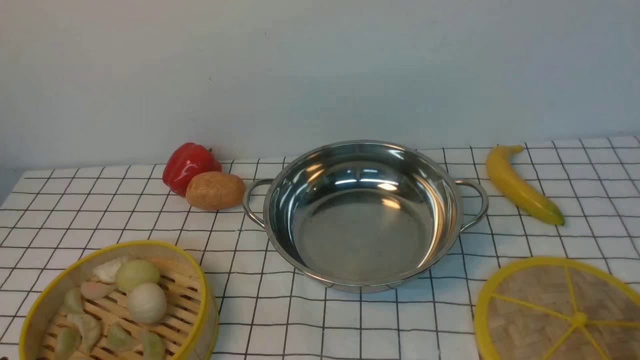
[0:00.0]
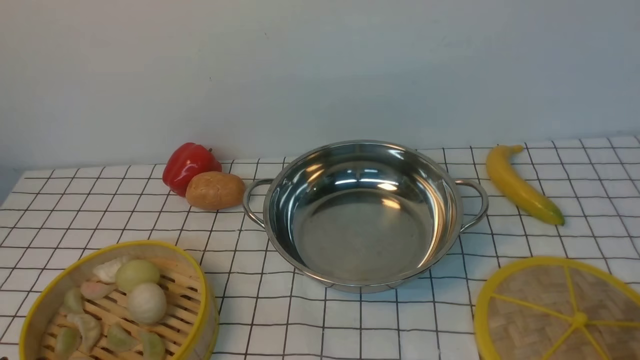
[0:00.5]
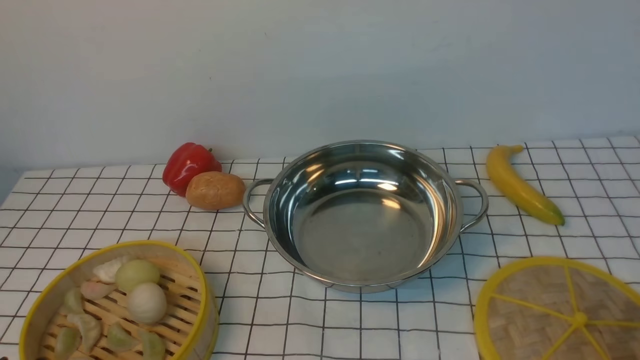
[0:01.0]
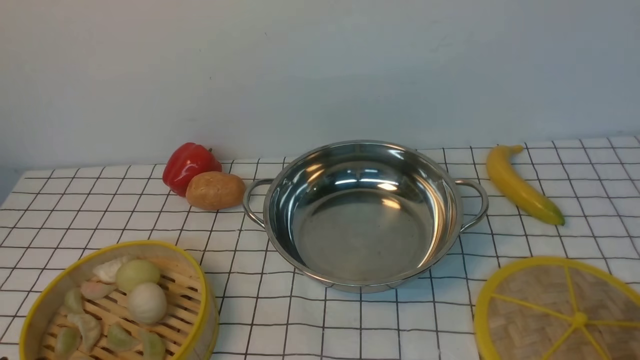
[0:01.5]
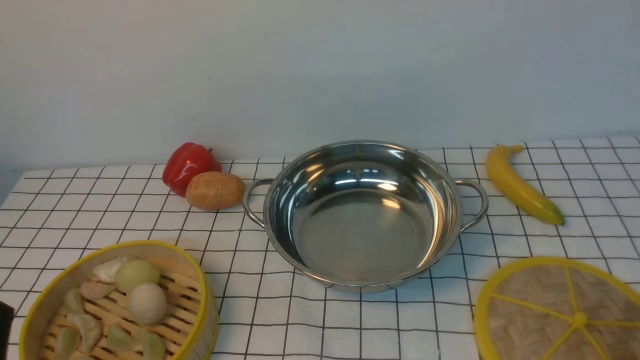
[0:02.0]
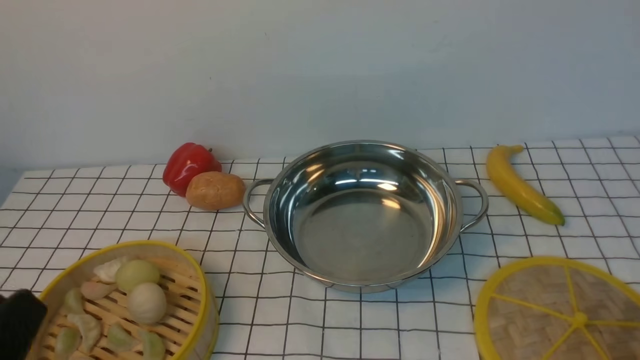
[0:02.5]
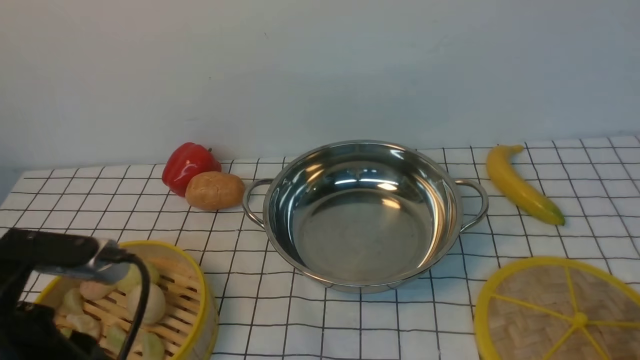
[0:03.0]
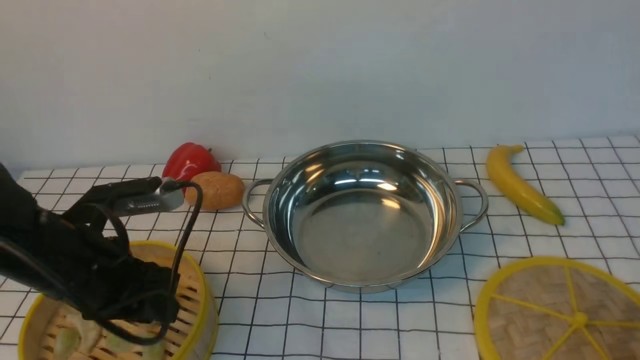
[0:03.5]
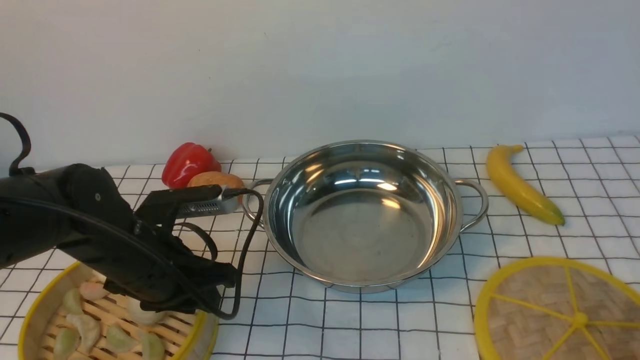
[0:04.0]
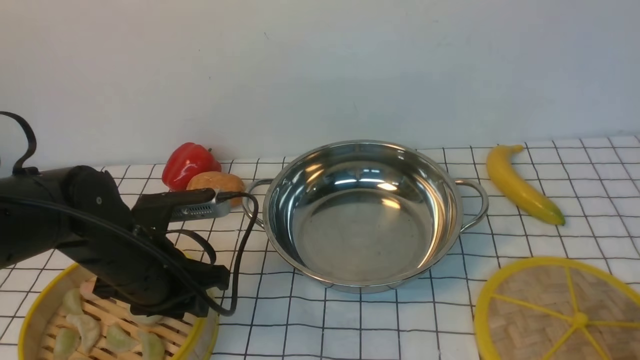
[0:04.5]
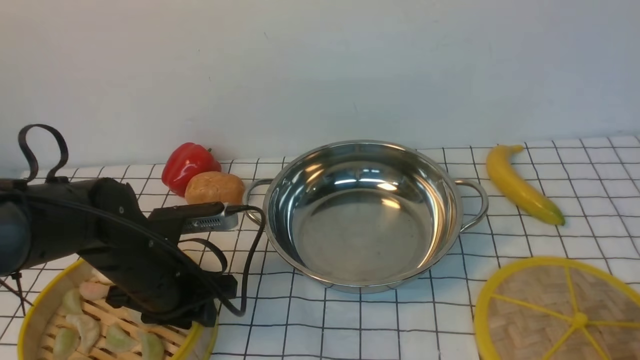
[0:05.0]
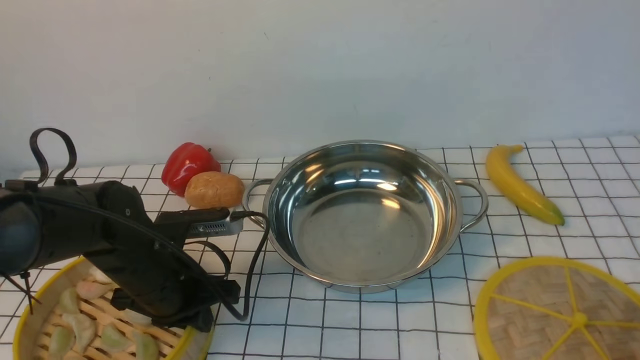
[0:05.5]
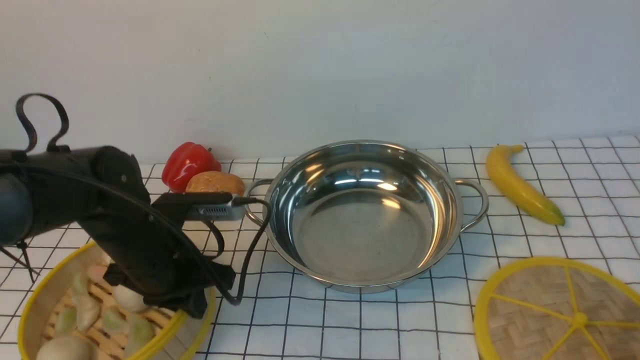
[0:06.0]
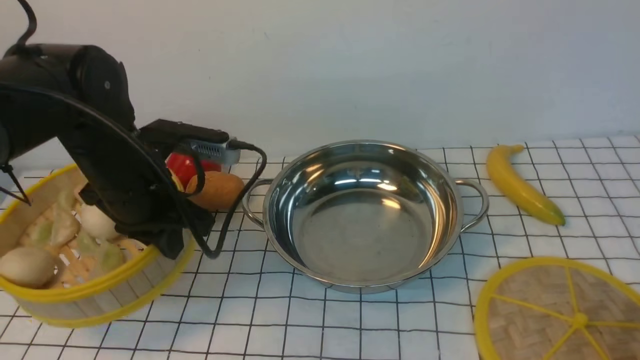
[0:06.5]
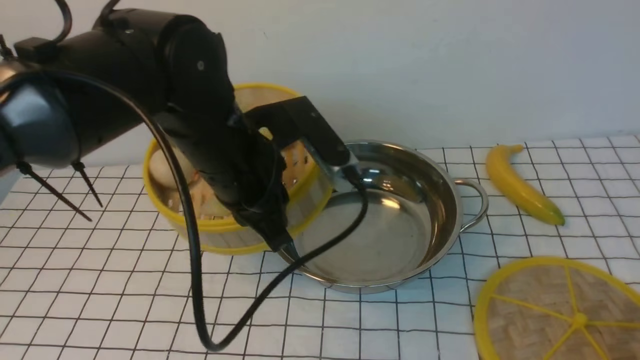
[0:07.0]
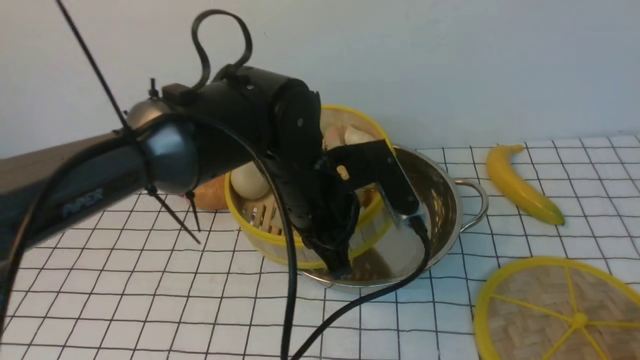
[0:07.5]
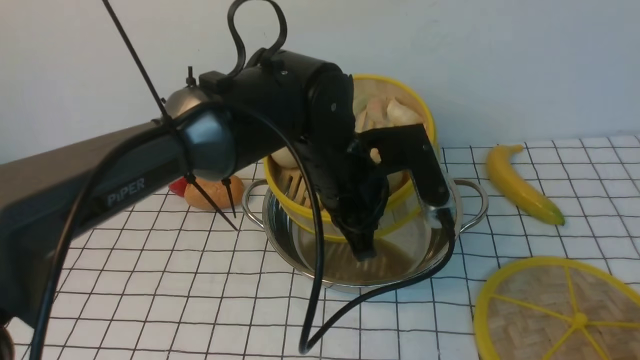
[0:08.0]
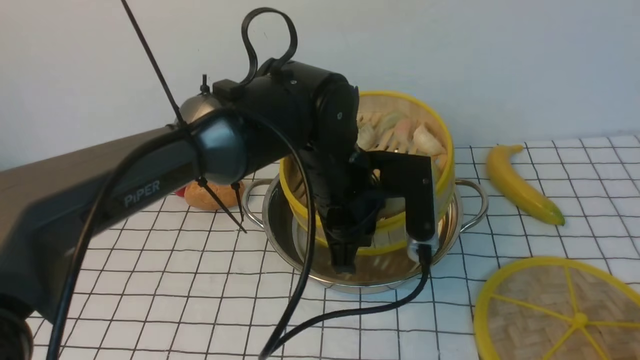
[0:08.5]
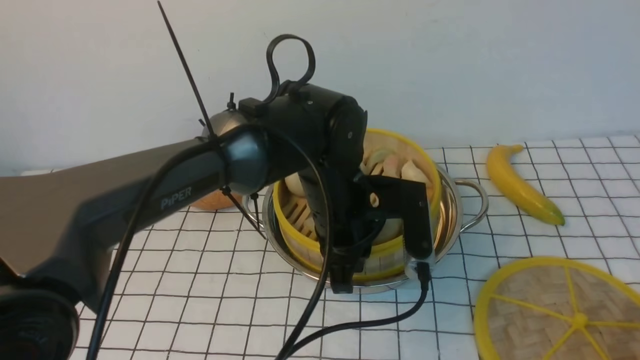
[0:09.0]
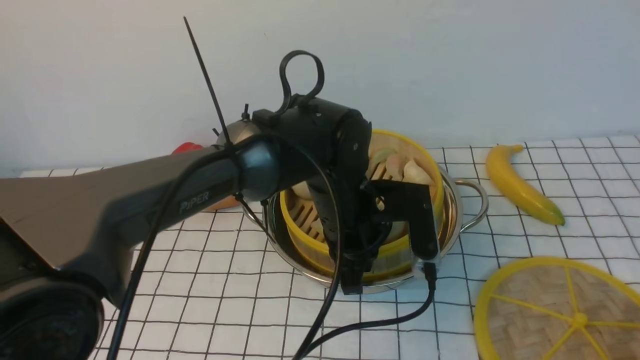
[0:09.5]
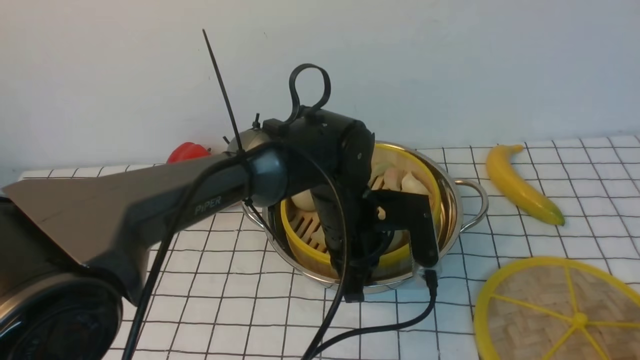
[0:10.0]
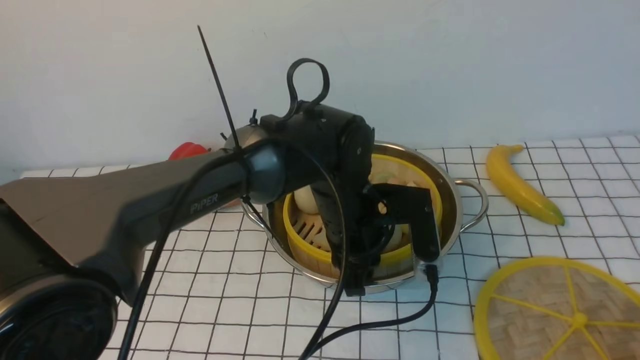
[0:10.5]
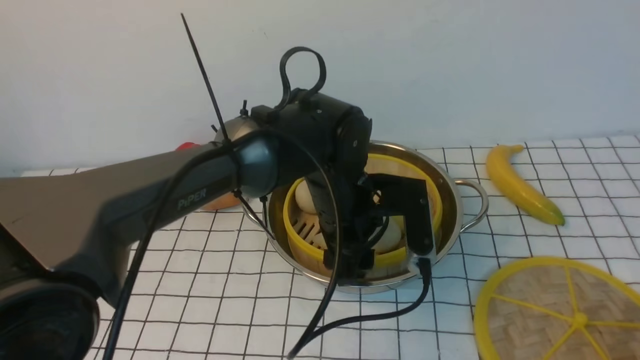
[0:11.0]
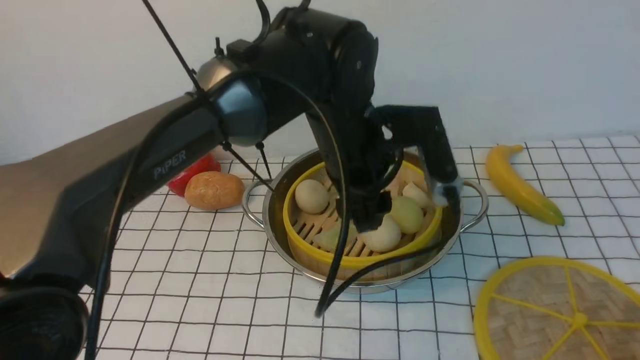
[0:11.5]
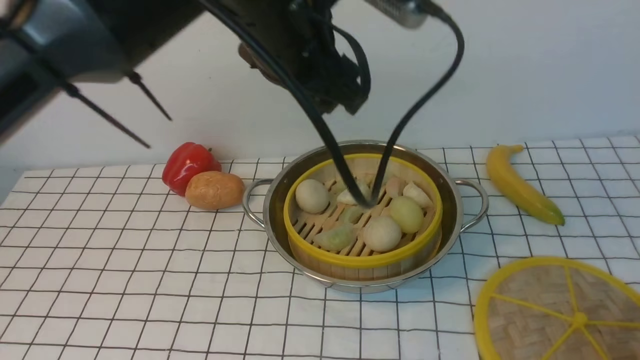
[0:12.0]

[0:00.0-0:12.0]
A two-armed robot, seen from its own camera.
Task of the whole recording: place the steamer in the pot on the white tablecloth, and put the lid on the steamer.
Step, 0:00.0 to 0:06.0: use the left arm to lift the steamer closest to it.
Step, 0:06.5 to 0:11.0: use the left arm to put the steamer into the iron steamer pot in the middle.
0:02.0 to 0:04.0: The left gripper is displaced forward by roughly 20 cm.
0:04.0 to 0:06.0: The left gripper closes.
0:06.0 to 0:08.0: The left gripper is displaced to the right by approximately 20 cm.
0:08.0 to 0:10.0: The left gripper shifts some 5 cm downward.
0:10.0 to 0:12.0: The left gripper goes some 20 cm upward, and opens its fingers.

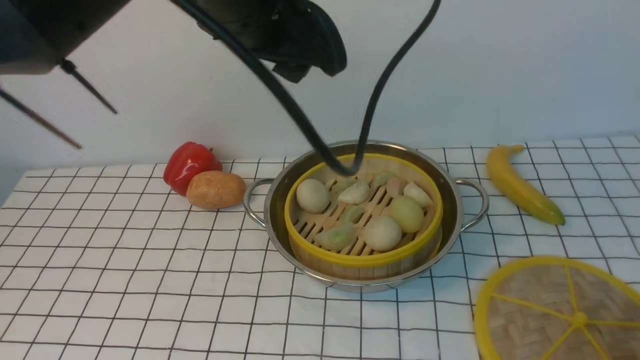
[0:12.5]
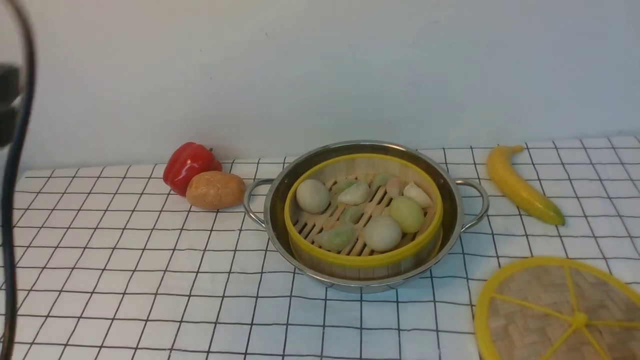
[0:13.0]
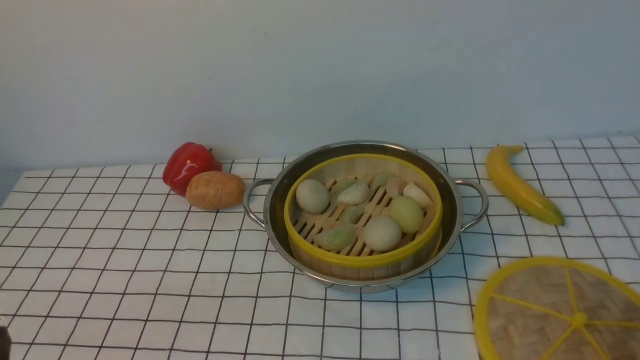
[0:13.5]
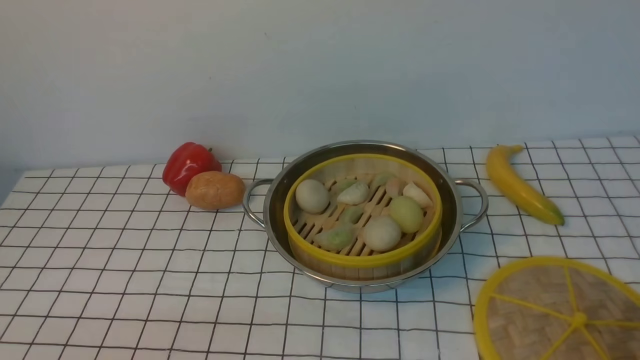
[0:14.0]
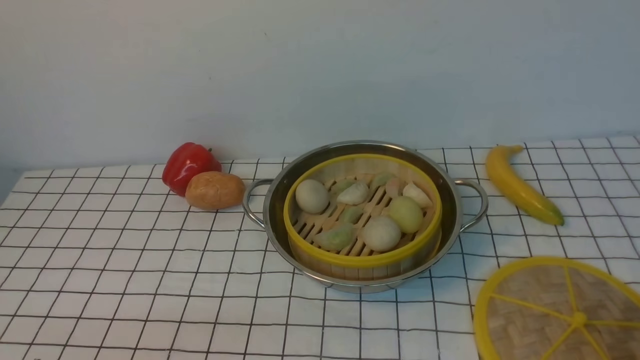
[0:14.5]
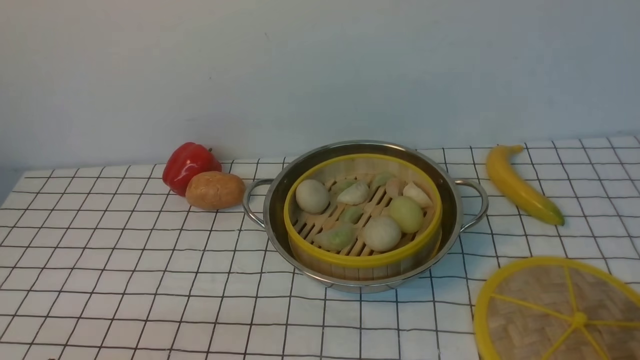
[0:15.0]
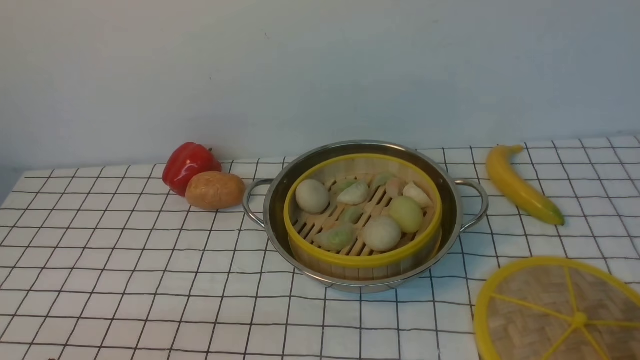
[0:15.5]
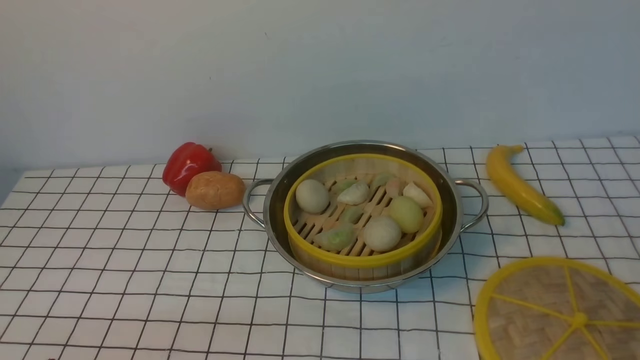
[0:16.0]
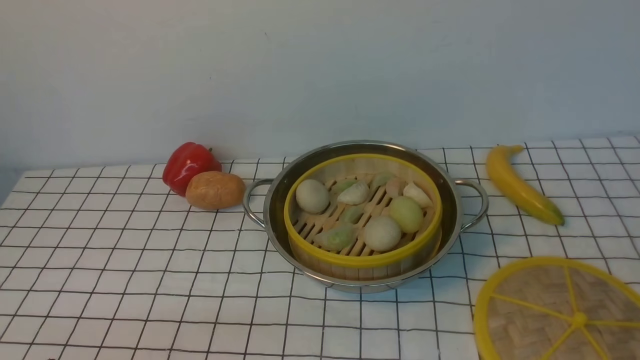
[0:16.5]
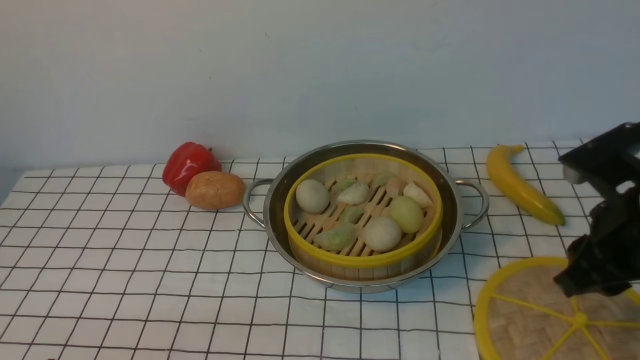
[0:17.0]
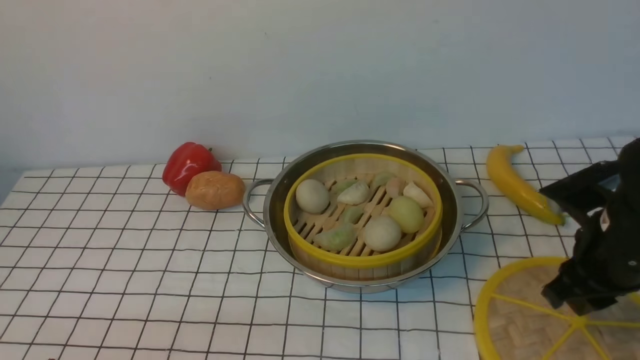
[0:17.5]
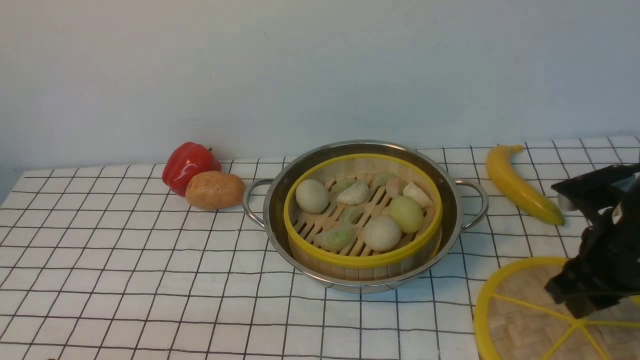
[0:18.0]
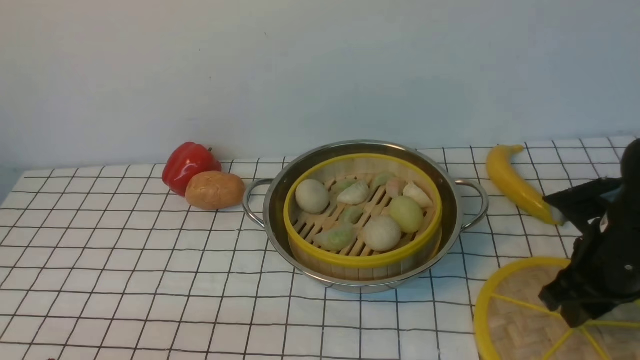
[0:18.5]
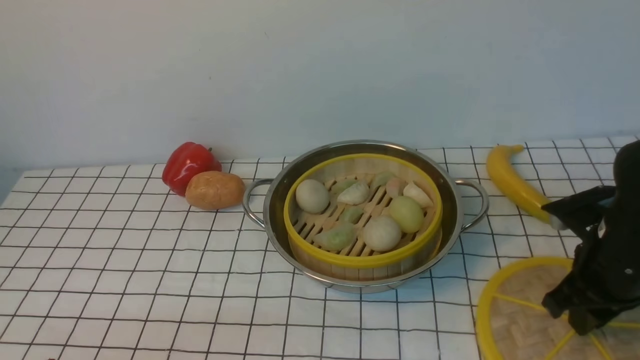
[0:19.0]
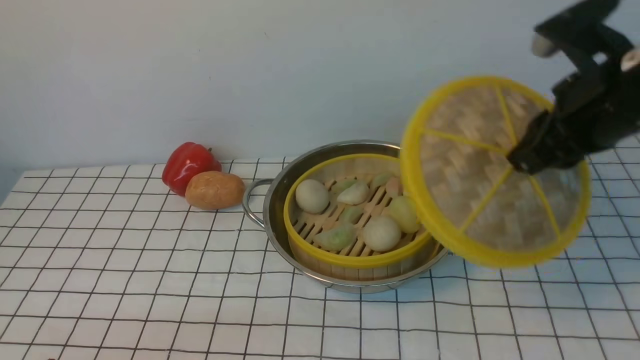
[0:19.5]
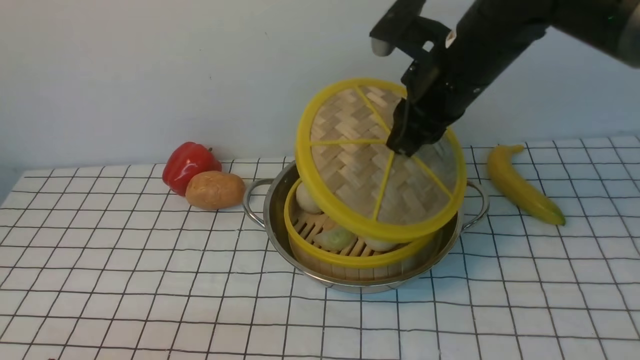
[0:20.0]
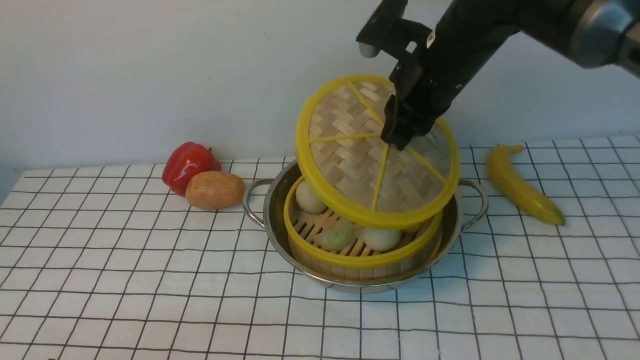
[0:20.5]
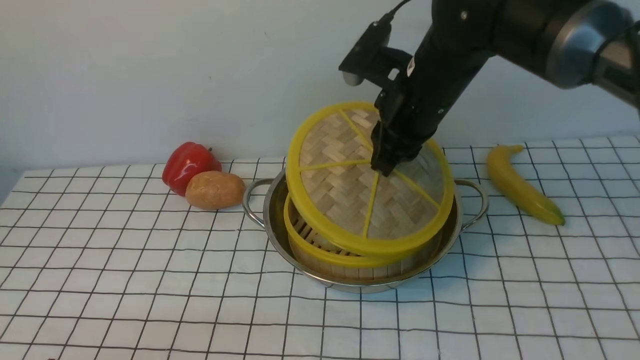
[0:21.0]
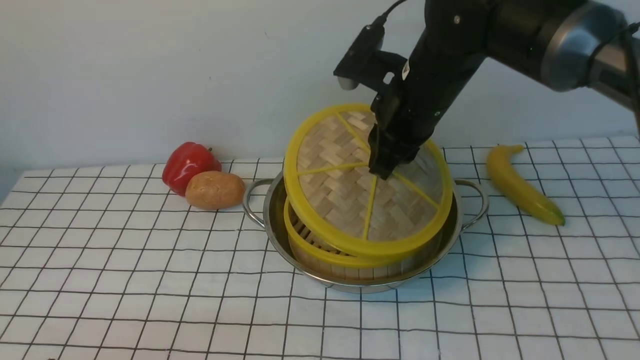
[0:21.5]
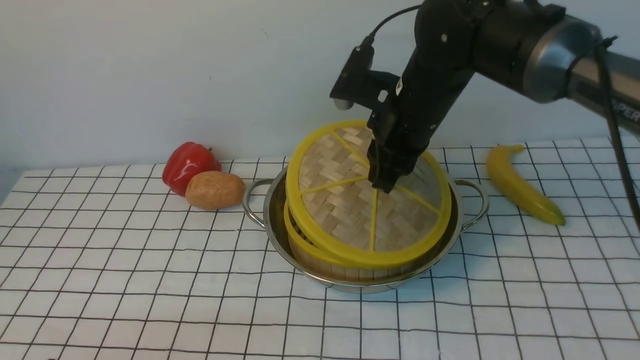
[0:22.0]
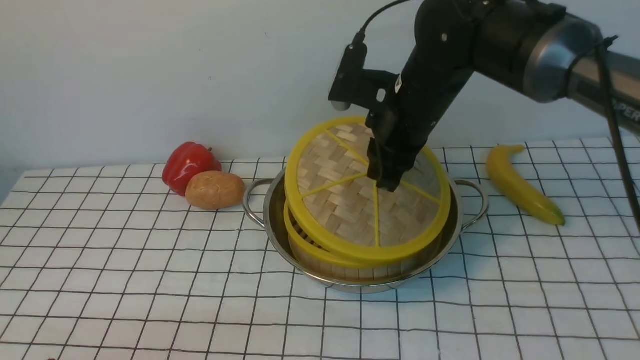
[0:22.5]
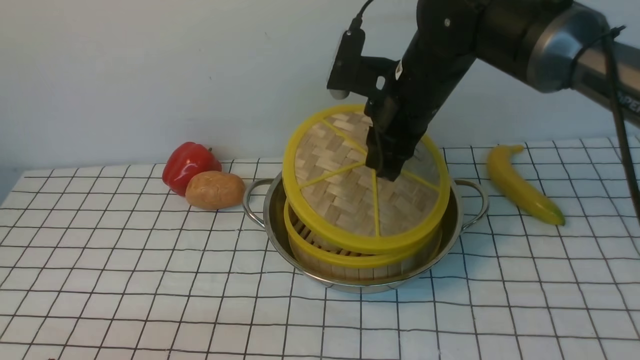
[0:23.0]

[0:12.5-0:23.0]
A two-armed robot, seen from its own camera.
Task of the whole recording: place the steamer in the pot on the white tablecloth, and put the lid on the steamer.
Step, 0:12.5 to 0:19.0: use the right arm to lift the lid of the steamer.
0:12.5 to 0:14.5: The left gripper moves downward, backward and to the left, approximately 40 cm.
0:16.5 to 0:19.0: The right gripper travels forward and downward by approximately 20 cm.
0:19.0 to 0:21.0: The right gripper is displaced to the left, forward and upward by some 25 cm.
0:21.0 to 0:23.0: There are only small adjustments of the grippers.
